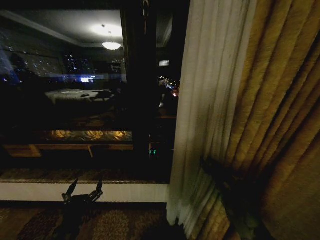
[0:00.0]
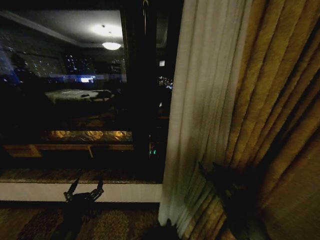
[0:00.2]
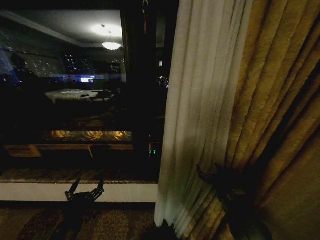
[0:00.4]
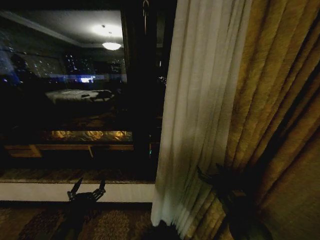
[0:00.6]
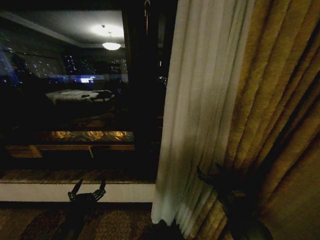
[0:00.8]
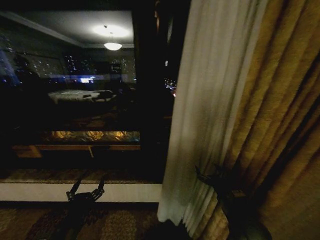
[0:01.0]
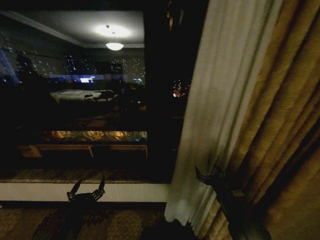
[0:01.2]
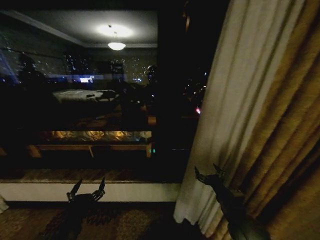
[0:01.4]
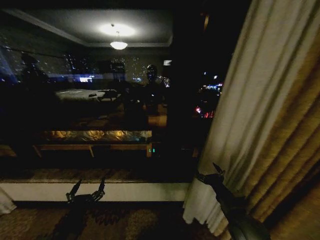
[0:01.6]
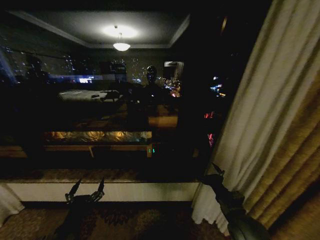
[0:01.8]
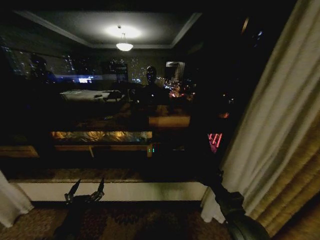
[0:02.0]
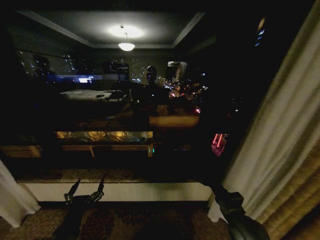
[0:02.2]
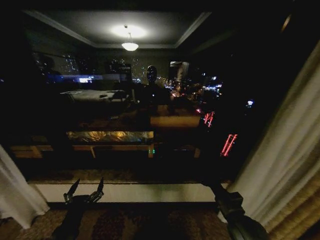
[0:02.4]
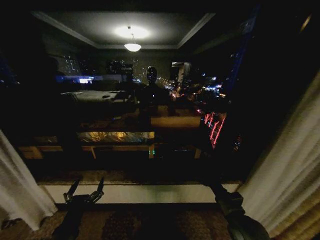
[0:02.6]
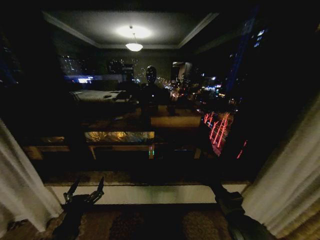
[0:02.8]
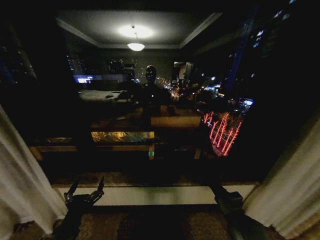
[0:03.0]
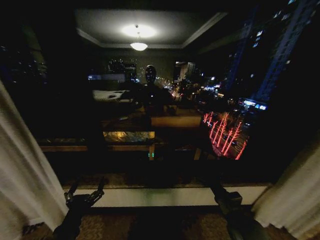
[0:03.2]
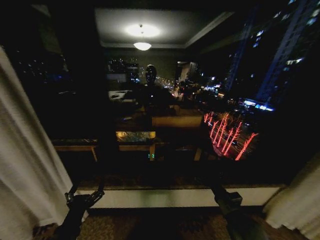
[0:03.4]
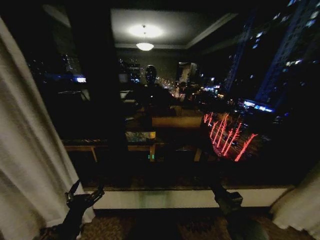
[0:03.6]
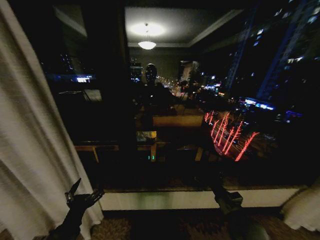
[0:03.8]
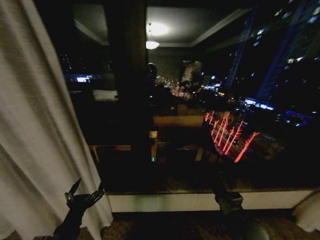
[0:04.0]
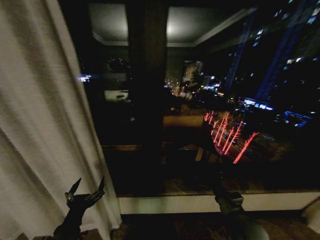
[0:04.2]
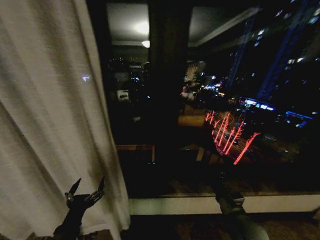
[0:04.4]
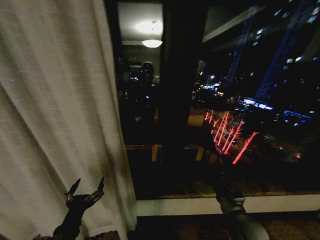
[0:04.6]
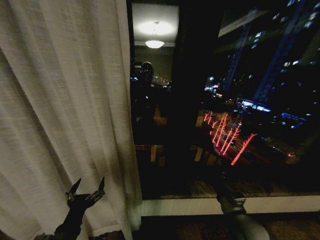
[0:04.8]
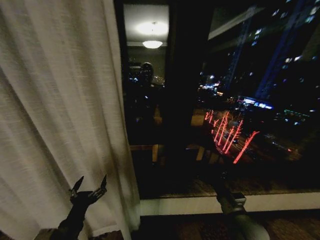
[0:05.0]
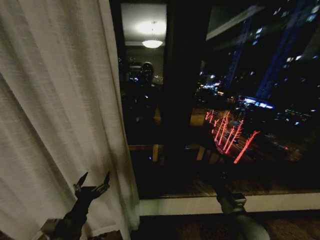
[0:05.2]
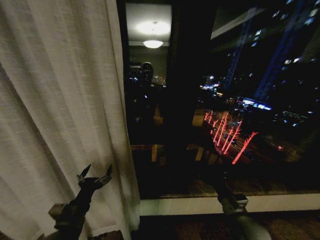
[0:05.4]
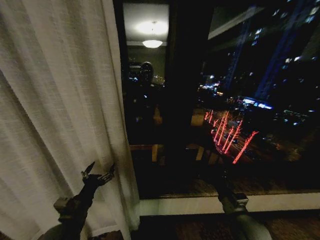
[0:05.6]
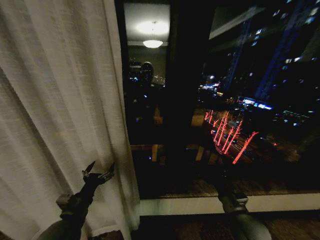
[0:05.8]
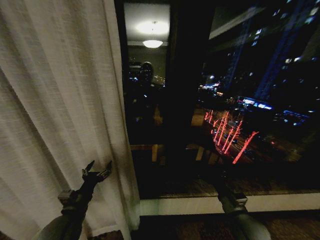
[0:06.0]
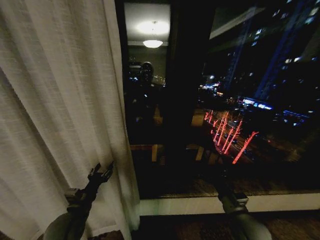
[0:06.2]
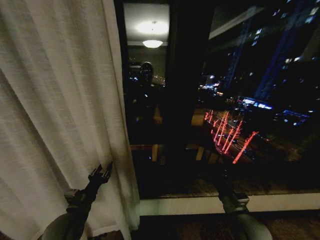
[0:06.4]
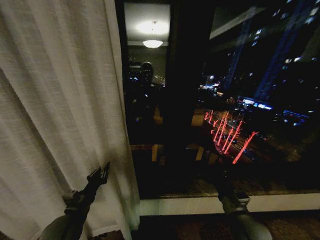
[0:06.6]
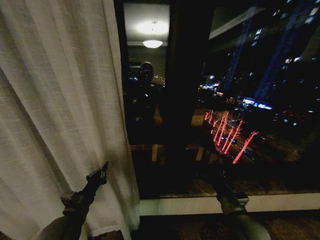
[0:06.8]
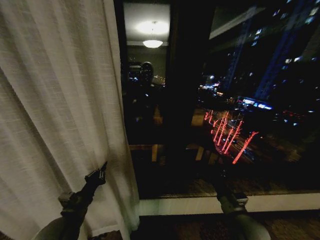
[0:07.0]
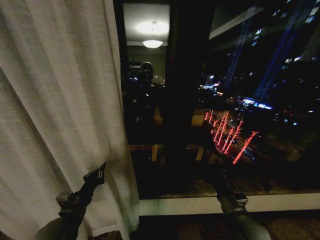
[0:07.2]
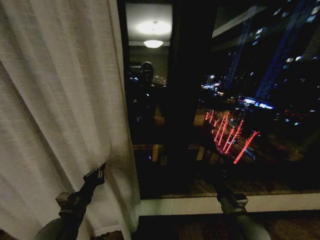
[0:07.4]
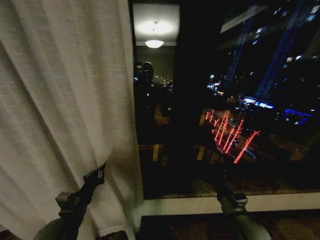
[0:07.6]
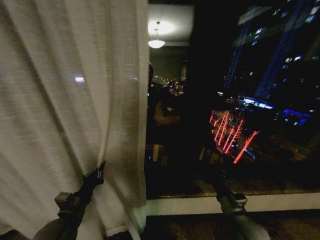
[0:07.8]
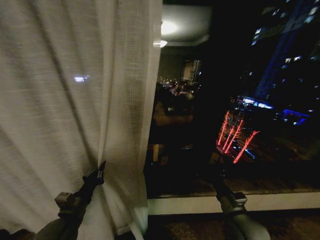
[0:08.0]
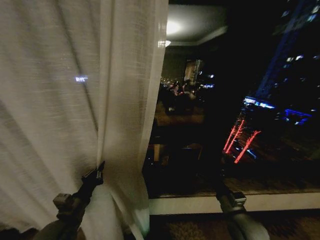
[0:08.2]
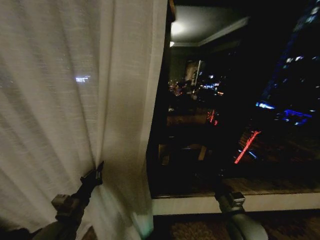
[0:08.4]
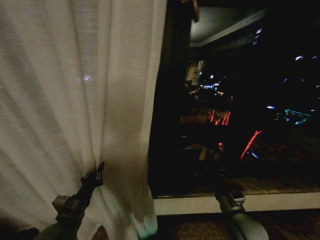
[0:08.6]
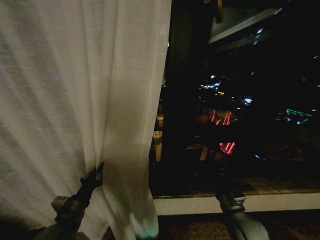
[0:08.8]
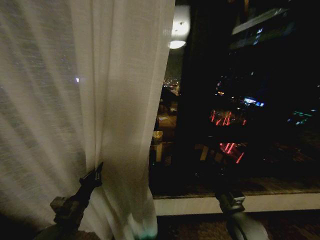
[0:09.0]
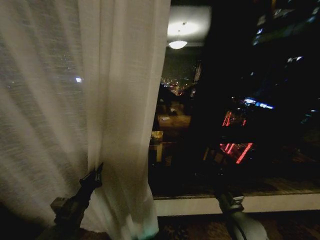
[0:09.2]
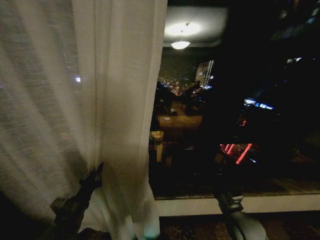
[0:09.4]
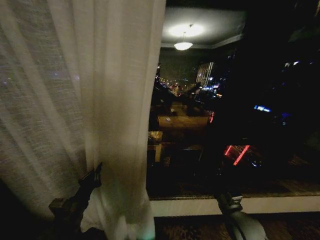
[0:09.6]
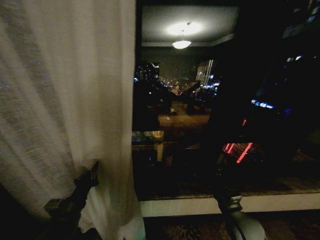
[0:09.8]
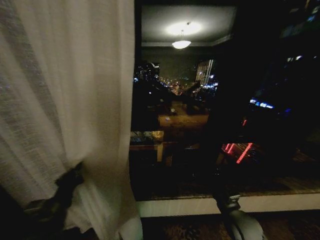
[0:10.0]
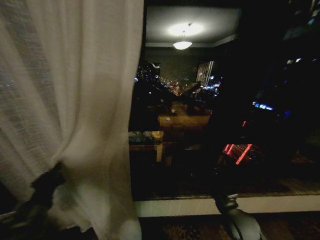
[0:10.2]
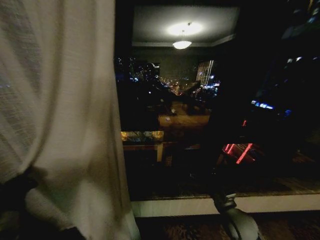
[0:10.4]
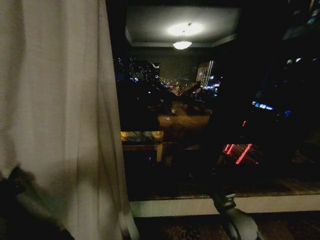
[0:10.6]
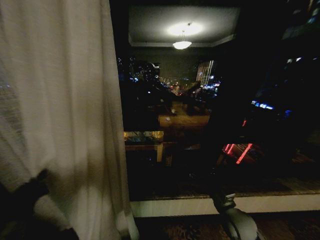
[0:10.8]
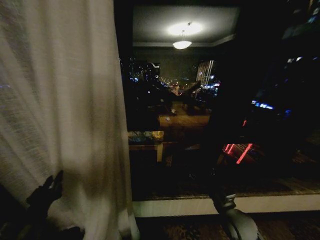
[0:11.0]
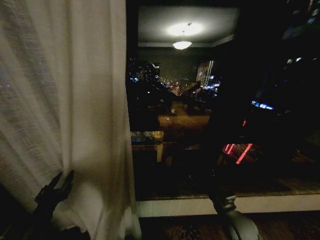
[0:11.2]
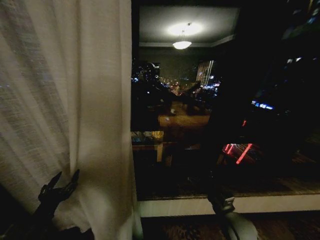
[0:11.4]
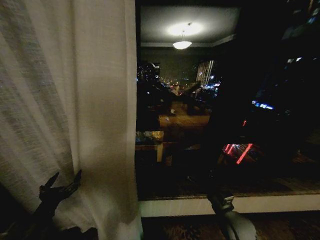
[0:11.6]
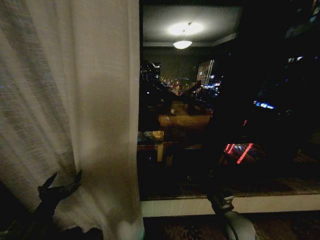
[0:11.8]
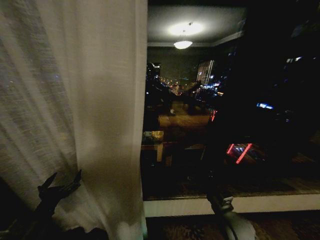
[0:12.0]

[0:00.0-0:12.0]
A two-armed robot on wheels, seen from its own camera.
Task of the whole recording: Open the curtains by pulling them apart, changing their state from closed to fully open.
0:00.0 to 0:01.6: The right gripper is displaced backward by some 5 cm, and opens up.
0:04.4 to 0:06.0: The left gripper is displaced forward by roughly 10 cm.
0:06.0 to 0:07.6: The left gripper closes up.
0:09.0 to 0:10.4: The left gripper travels to the left by some 10 cm.
0:10.4 to 0:12.0: The left gripper opens.

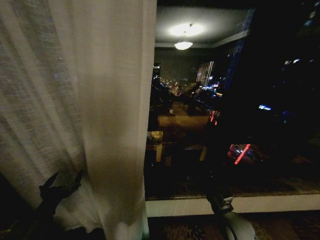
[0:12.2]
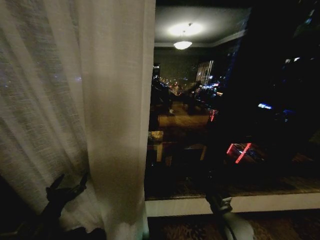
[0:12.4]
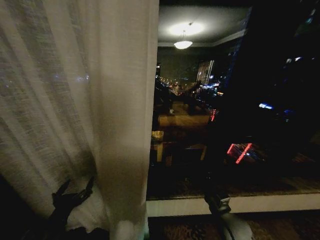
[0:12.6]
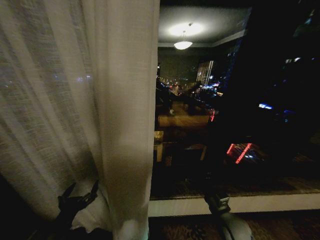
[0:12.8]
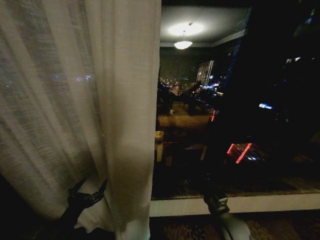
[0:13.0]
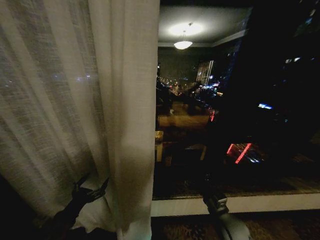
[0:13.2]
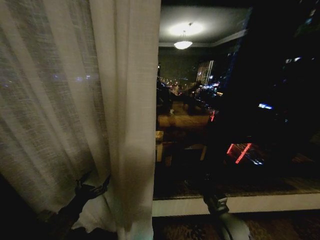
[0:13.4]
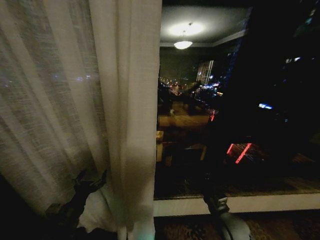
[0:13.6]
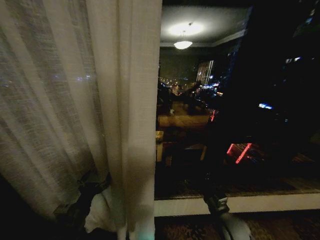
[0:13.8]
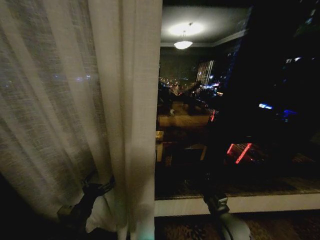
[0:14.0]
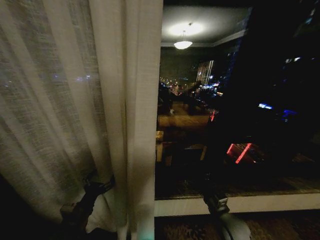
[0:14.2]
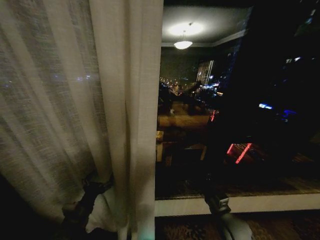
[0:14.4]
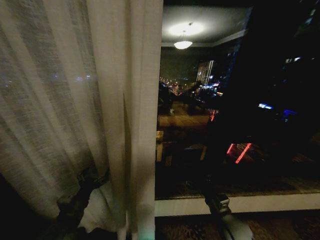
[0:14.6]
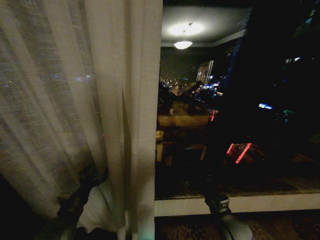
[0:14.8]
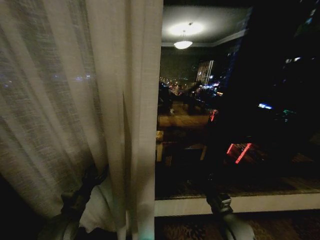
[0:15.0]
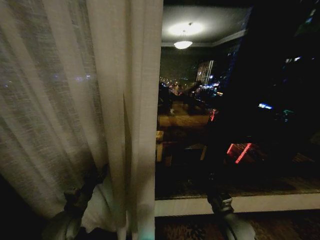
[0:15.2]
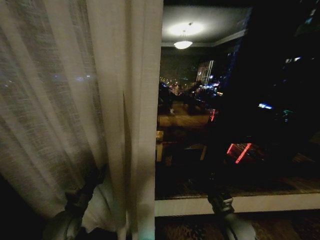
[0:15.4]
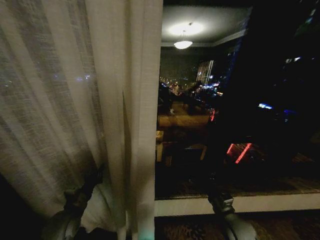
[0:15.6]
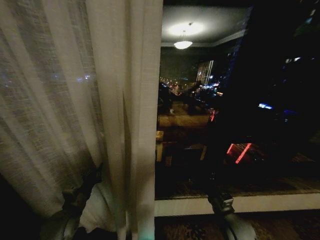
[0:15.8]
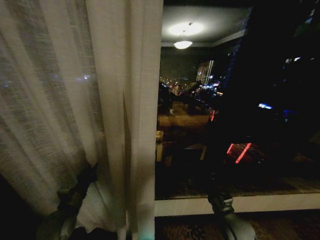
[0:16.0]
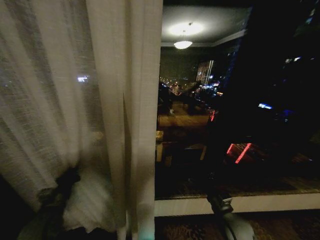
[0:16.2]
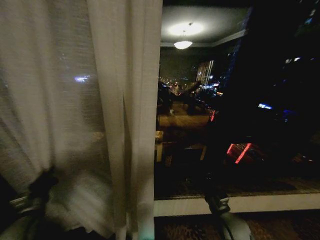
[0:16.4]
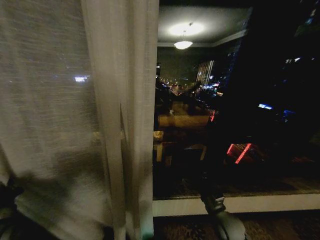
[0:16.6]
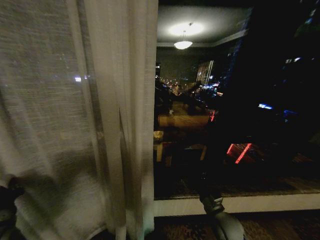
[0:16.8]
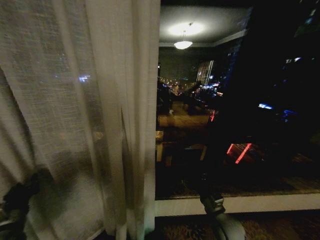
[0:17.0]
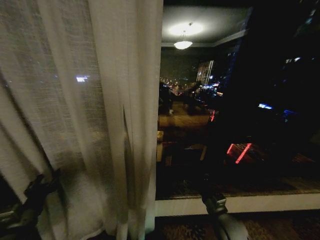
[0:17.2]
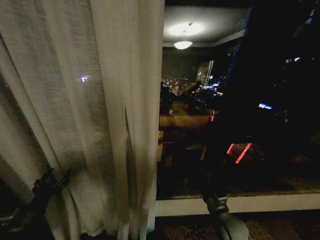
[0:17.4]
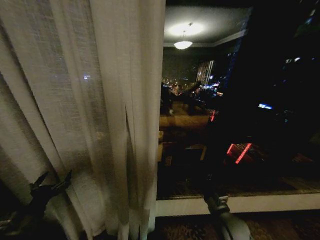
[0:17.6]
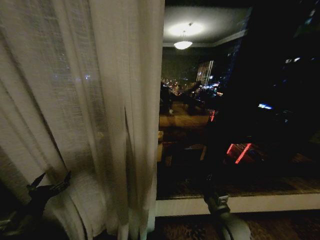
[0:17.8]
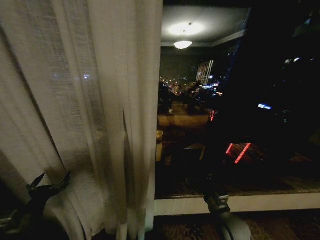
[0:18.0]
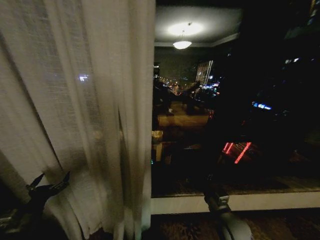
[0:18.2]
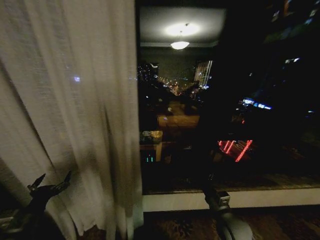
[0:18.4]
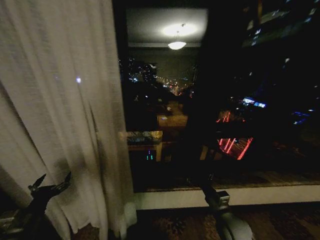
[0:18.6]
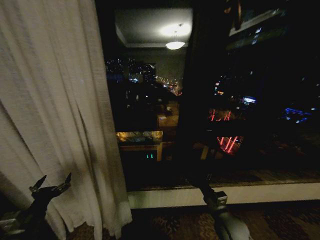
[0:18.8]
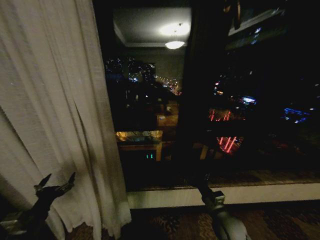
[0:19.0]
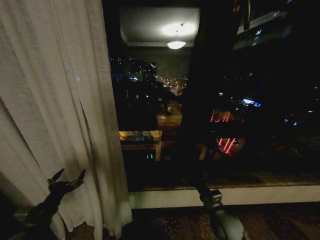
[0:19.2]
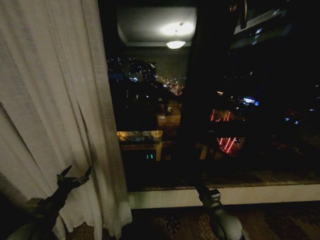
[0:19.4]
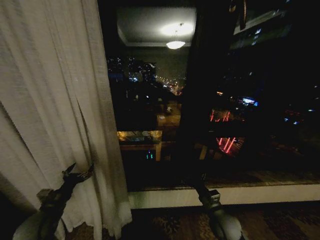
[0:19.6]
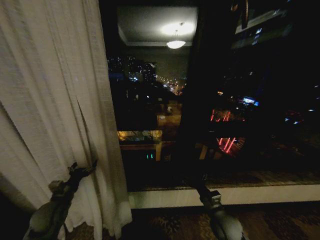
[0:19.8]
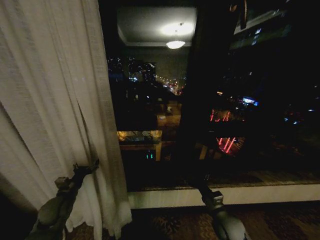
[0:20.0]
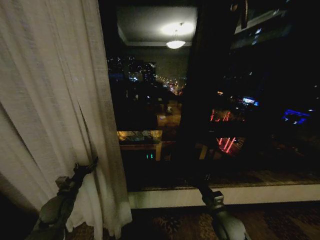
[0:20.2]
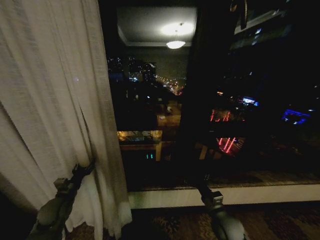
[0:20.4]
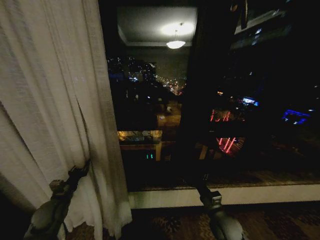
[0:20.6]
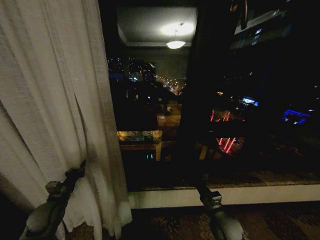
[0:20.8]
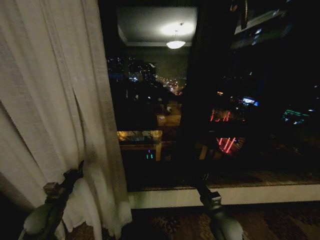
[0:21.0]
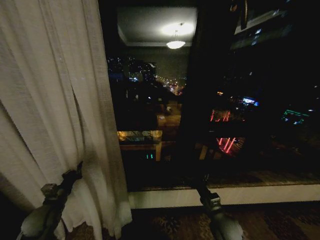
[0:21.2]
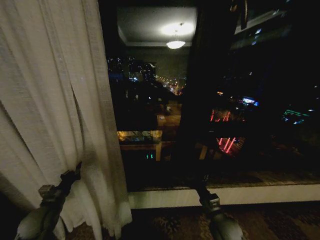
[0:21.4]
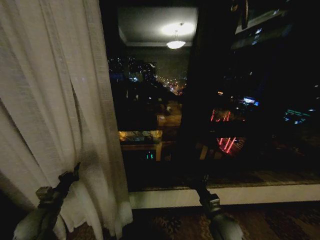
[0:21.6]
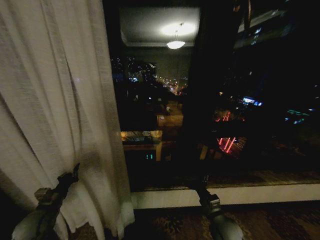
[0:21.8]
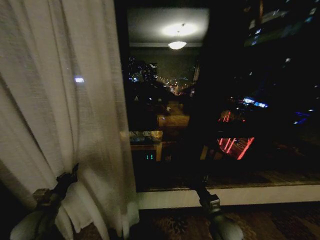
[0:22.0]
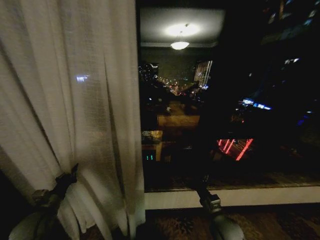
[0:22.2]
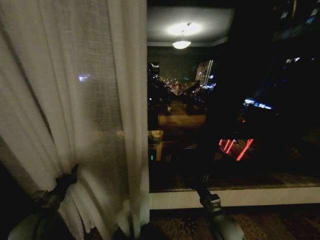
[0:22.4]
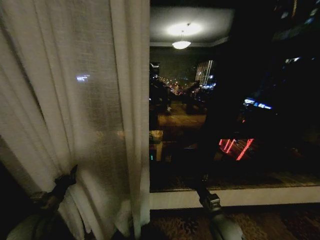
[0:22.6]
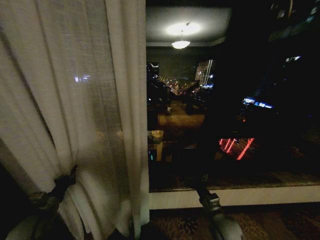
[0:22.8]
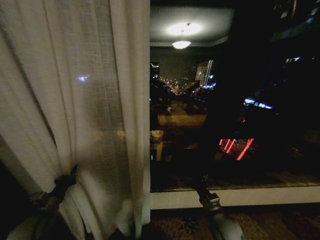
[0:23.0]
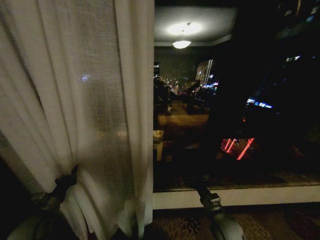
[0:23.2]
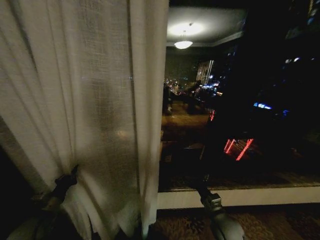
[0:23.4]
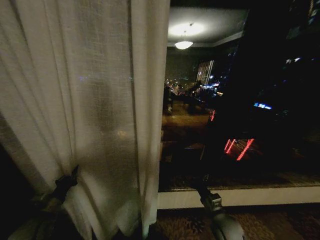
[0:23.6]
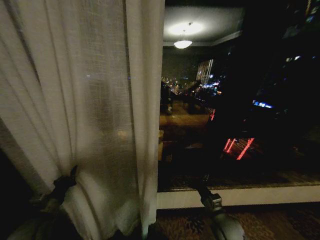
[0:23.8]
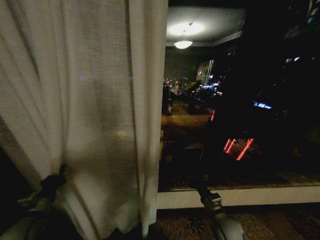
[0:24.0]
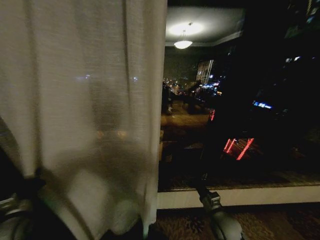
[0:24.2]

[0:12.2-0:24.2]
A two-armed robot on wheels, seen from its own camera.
Task of the whole recording: Open the curtains by pulling them apart, changing their state from closed to fully open.
0:12.2 to 0:13.8: The left gripper travels to the right by approximately 10 cm.
0:13.8 to 0:15.2: The left gripper heads forward, covering about 5 cm, and closes its fingers.
0:15.2 to 0:16.6: The left gripper shifts roughly 15 cm to the left, and closes its fingers.
0:16.6 to 0:18.2: The left gripper goes about 5 cm to the right, and opens.
0:18.2 to 0:19.8: The left gripper moves forward, about 10 cm.
0:19.8 to 0:21.2: The left gripper closes up.
